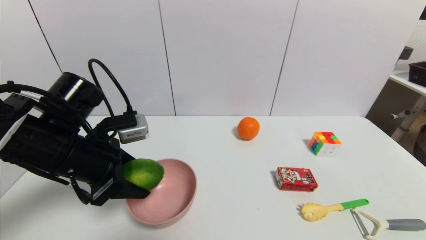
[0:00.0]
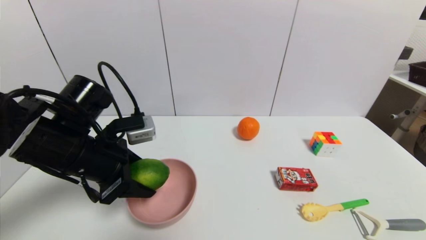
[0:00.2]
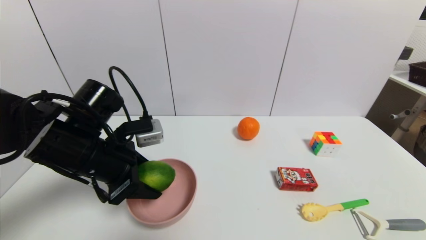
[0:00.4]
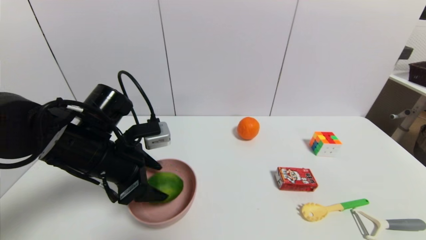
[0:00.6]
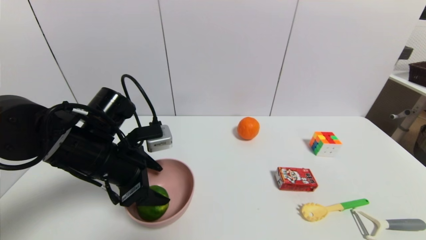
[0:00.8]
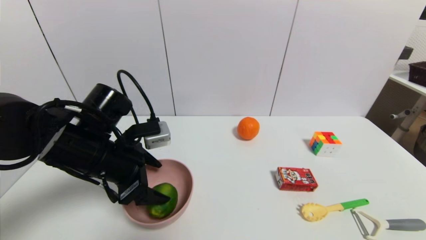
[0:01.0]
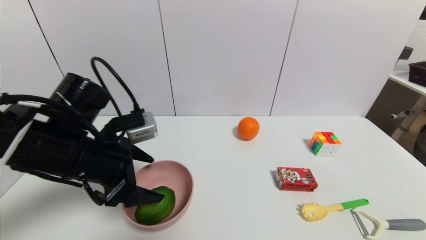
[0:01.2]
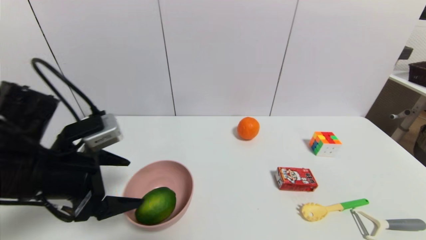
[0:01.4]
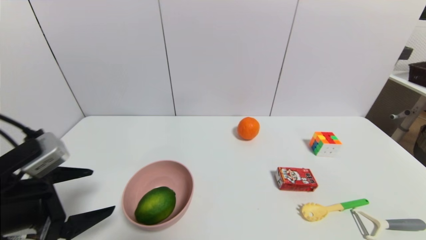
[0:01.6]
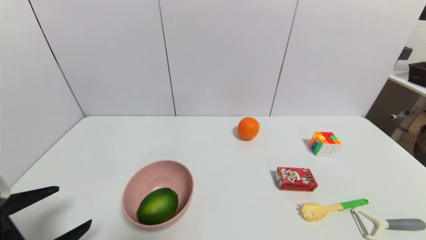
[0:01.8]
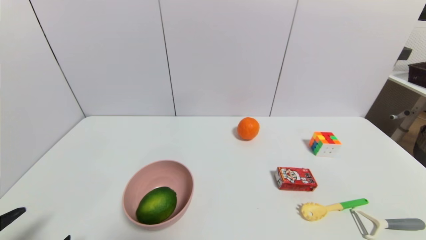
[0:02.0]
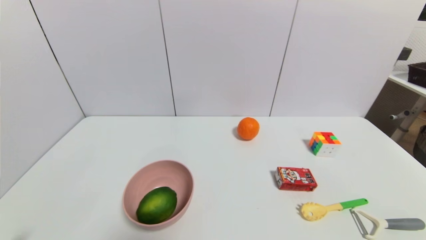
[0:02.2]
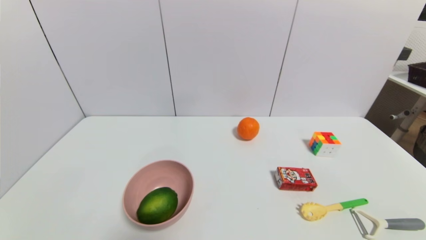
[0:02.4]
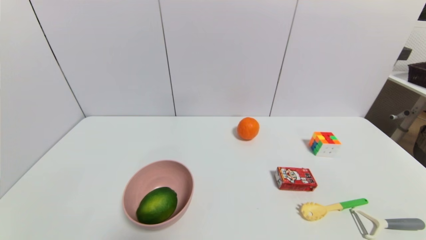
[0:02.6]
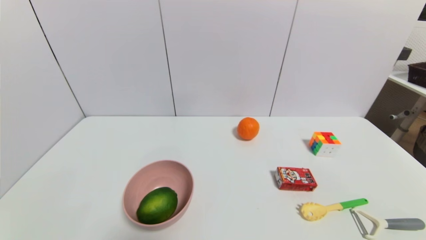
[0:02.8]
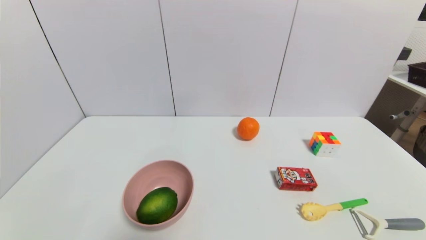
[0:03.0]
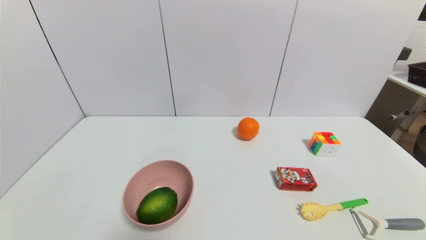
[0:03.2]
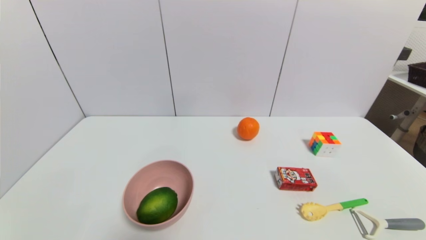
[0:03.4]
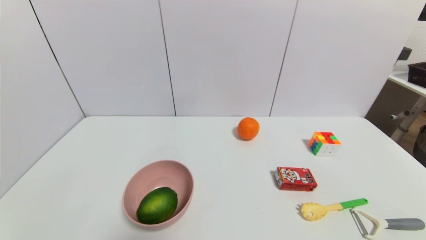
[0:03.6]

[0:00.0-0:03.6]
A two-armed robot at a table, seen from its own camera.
Task of the whole recording: use a gripper to pick the target object and place on the pink bowl.
0:00.0 to 0:01.8: The left gripper goes some 15 cm backward and to the left, and opens its fingers.
0:01.8 to 0:03.6: The left gripper moves downward and backward, roughly 10 cm.
